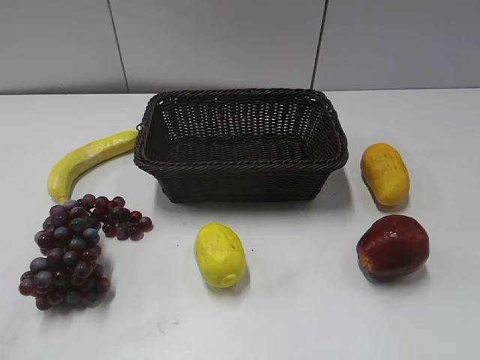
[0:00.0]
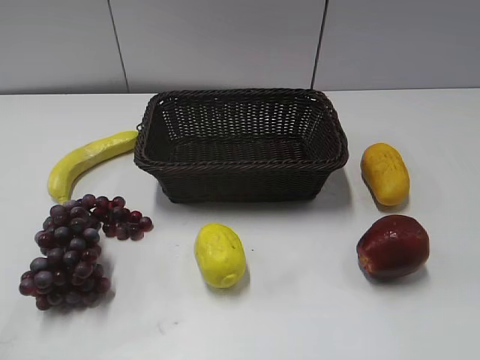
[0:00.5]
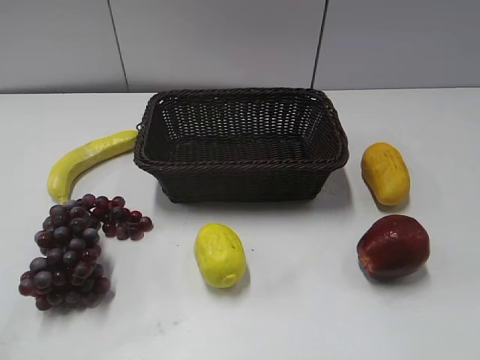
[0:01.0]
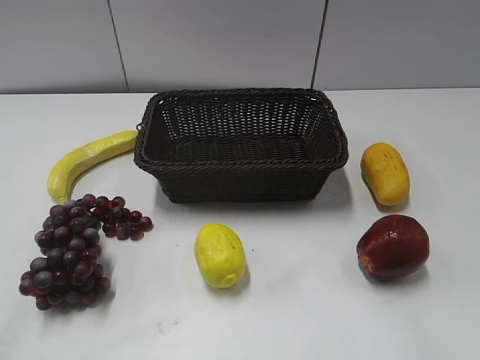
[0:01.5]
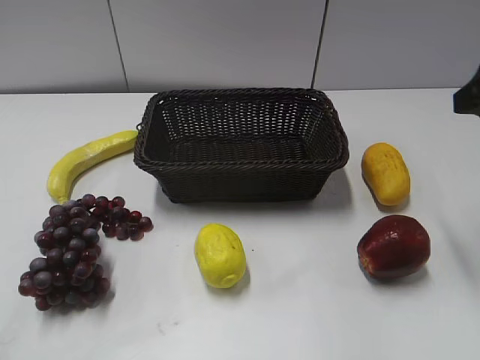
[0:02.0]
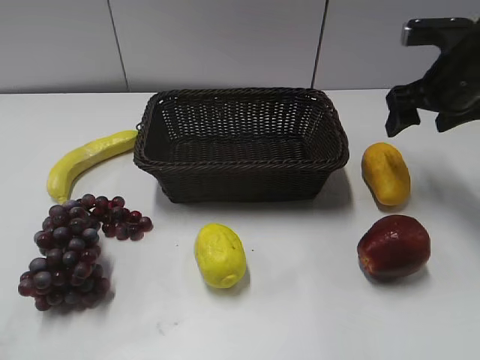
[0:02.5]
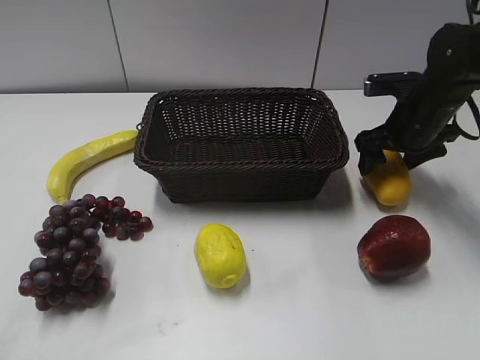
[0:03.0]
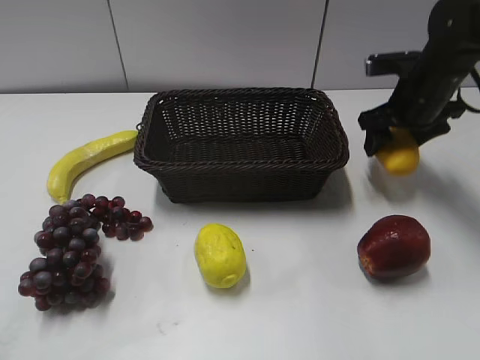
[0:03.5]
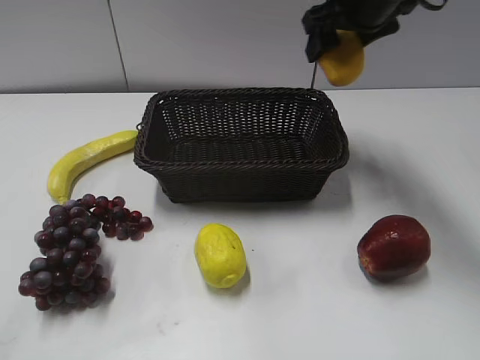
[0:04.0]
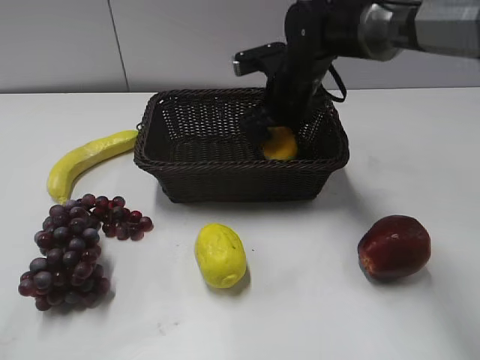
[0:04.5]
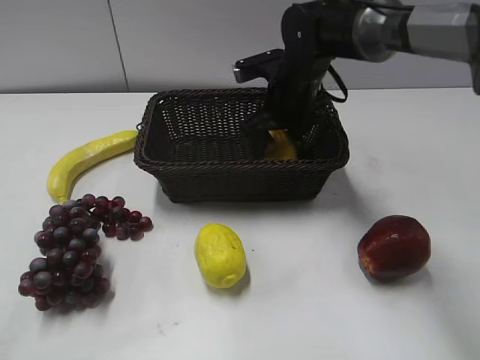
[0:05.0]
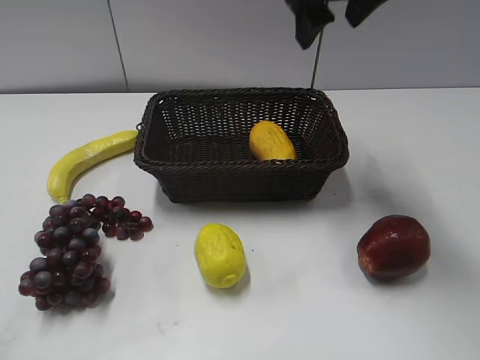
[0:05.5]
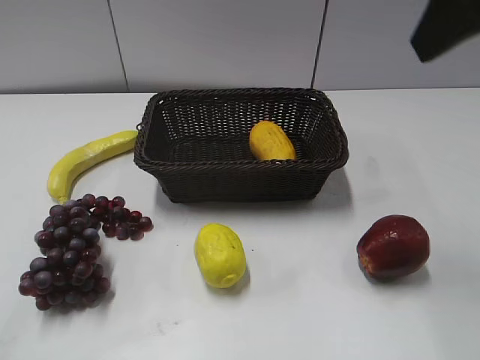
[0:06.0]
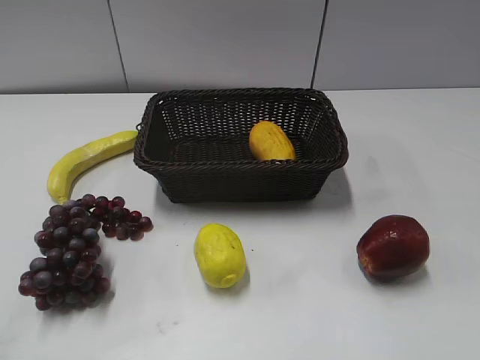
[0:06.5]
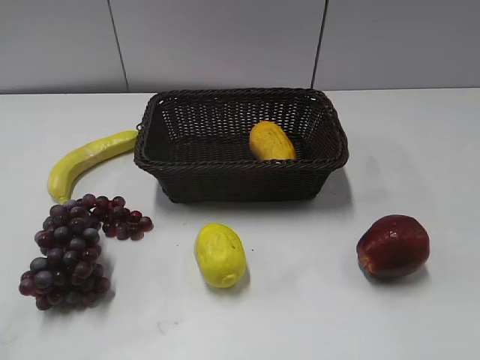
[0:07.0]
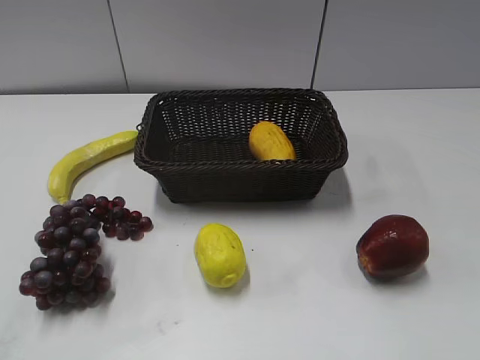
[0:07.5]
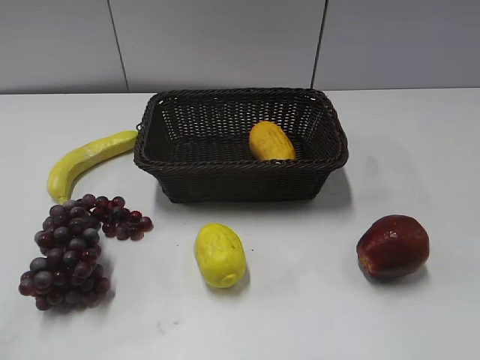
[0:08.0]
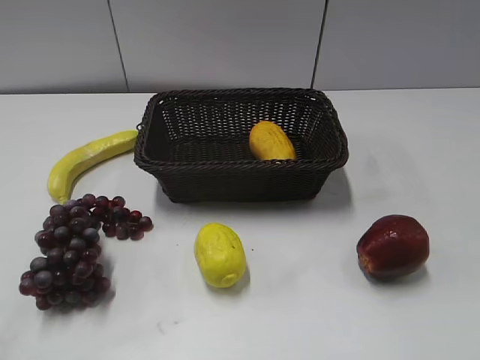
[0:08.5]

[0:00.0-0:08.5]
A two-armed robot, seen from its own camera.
Step, 0:02.0 to 0:03.0: Grasp the mango with right gripper.
Step, 0:03.5 to 0:05.0: Place the mango in the basket with right gripper.
0:02.0 to 0:04.0: The right gripper goes some 20 cm forward and to the left.
0:04.0 to 0:06.5: The right gripper shifts approximately 35 cm backward.
